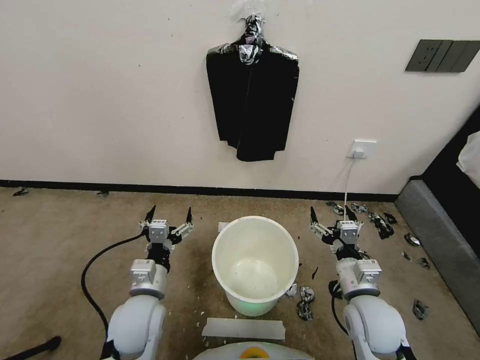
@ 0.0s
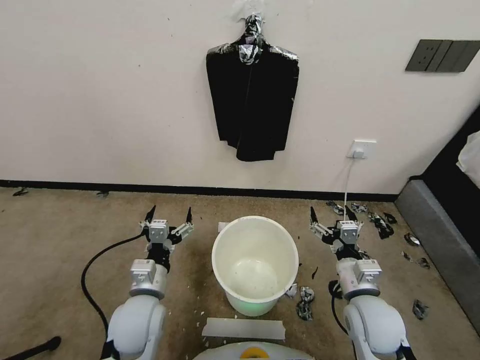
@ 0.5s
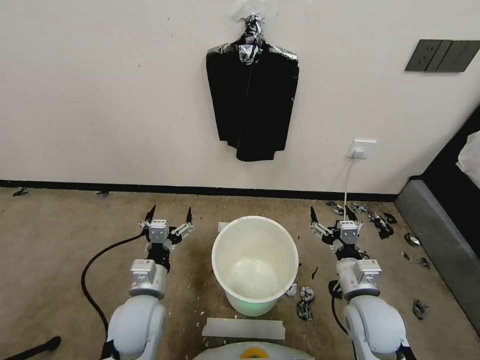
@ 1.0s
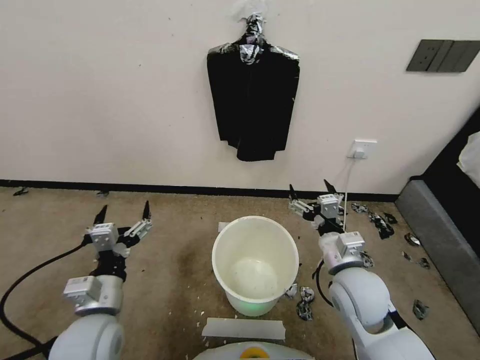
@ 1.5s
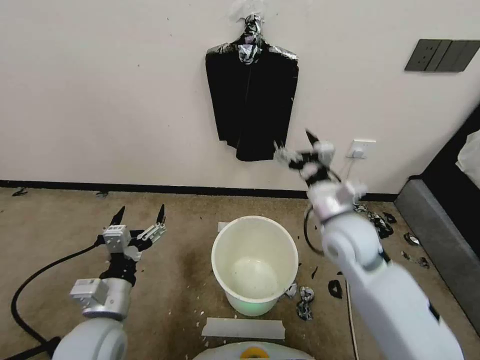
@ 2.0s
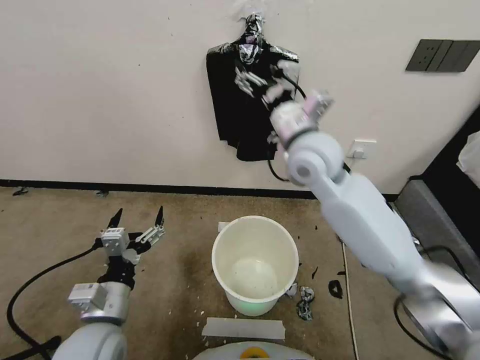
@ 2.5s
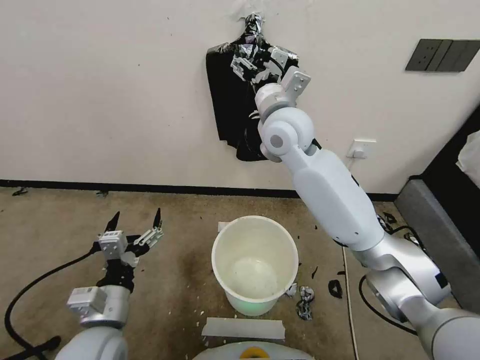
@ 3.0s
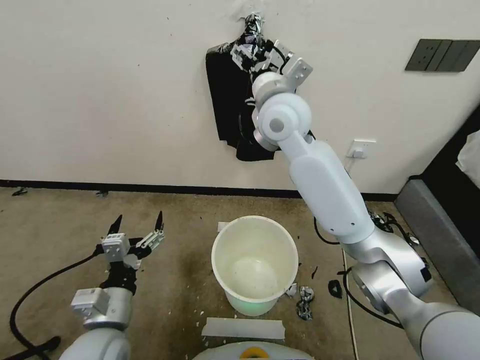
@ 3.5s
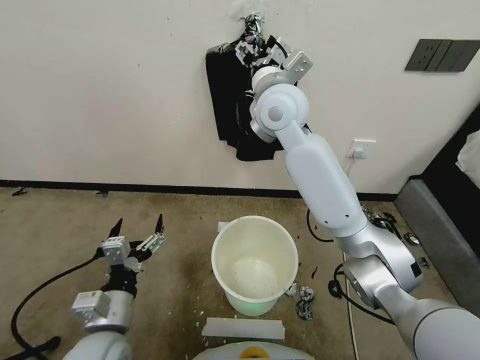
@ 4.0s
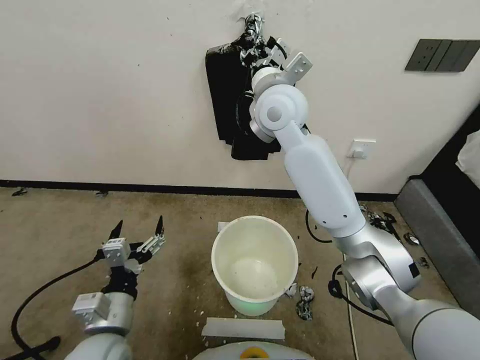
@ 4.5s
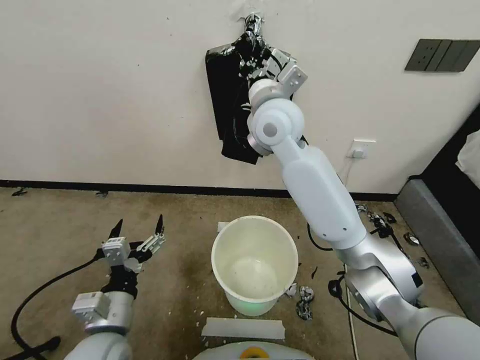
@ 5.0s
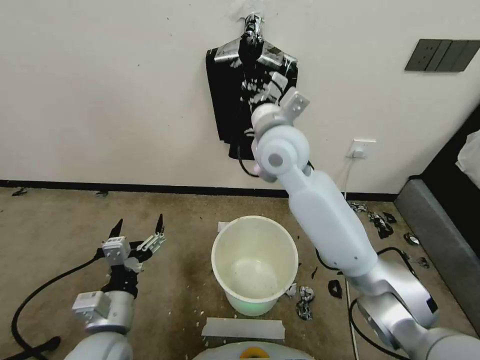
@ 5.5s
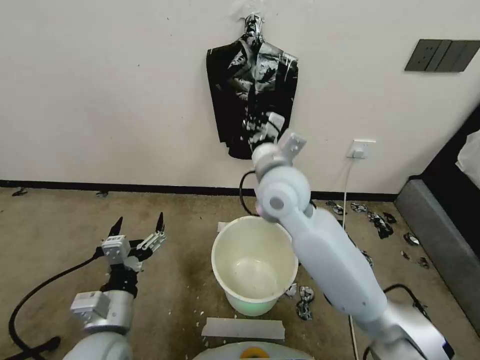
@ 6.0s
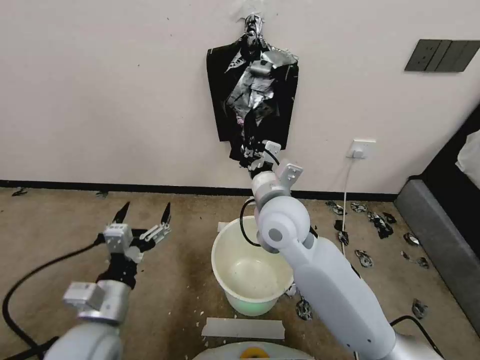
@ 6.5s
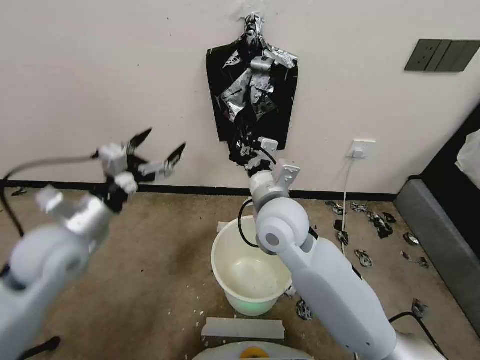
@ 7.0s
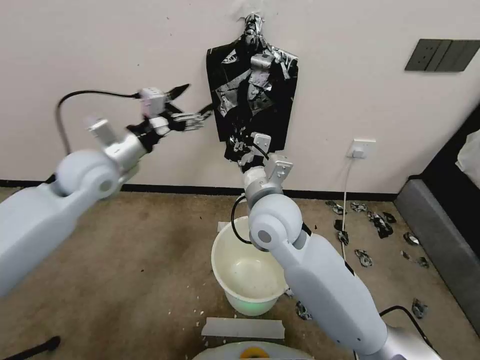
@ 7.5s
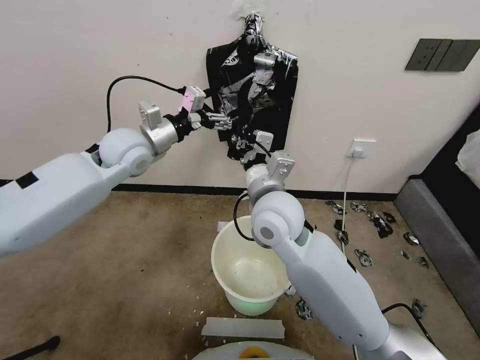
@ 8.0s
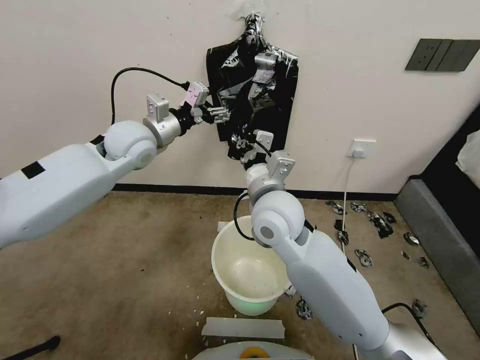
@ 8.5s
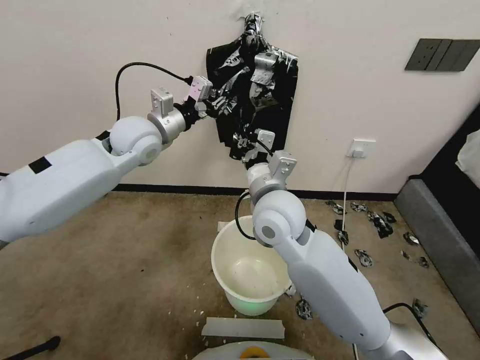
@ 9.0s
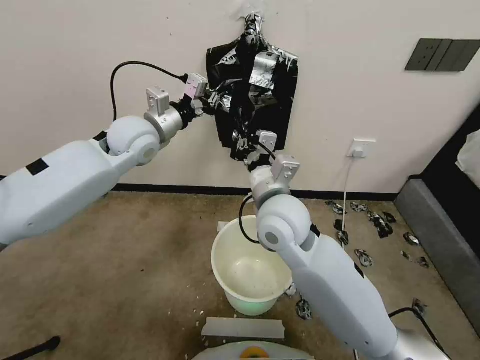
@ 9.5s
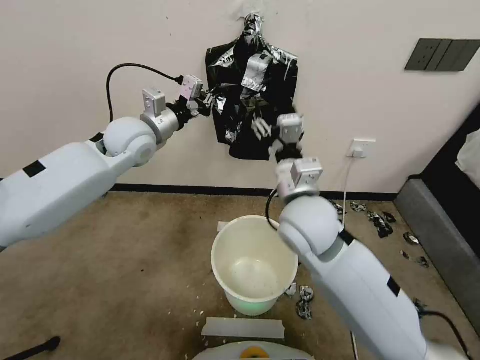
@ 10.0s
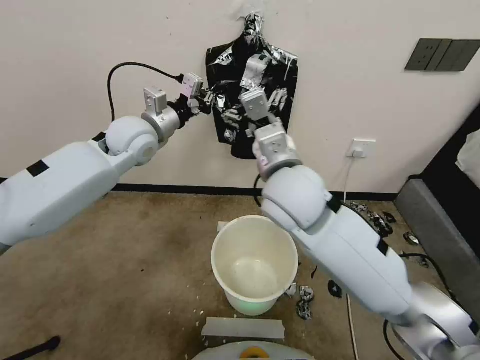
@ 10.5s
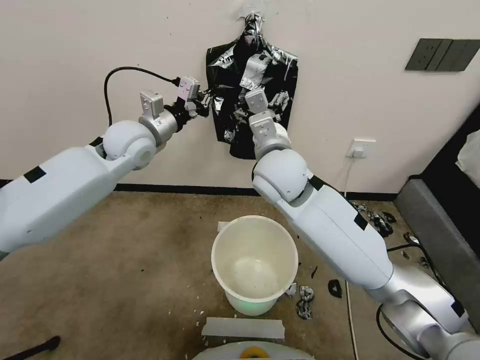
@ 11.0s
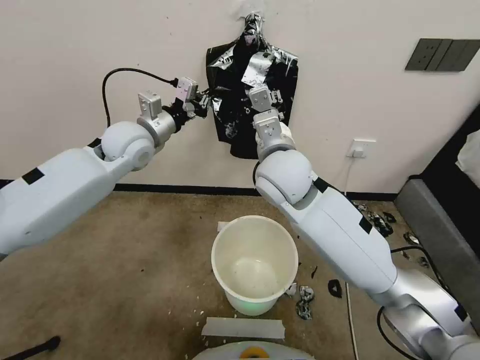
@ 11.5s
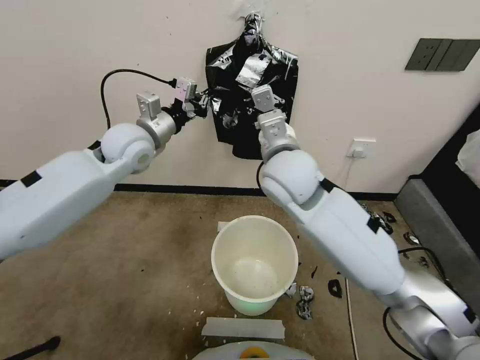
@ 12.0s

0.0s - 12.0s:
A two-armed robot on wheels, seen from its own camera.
Task of the whole recording: Place a trash bag onto the trash bin.
2.0s - 4.0s: The right gripper shifts about 30 cm upward, forward and to the left.
4.0s - 6.0s: The right gripper shifts approximately 15 cm downward and backward, and closes up.
6.0s - 8.0s: The left gripper shifts approximately 35 cm forward and upward. Meanwhile the right gripper moves approximately 5 cm.
8.0s - 10.0s: The right gripper changes place by approximately 5 cm, and opens up. The left gripper closes.
10.0s - 12.0s: The right gripper goes some 5 cm forward, and closes its fingers.

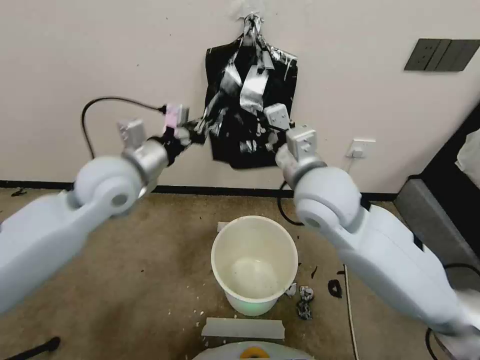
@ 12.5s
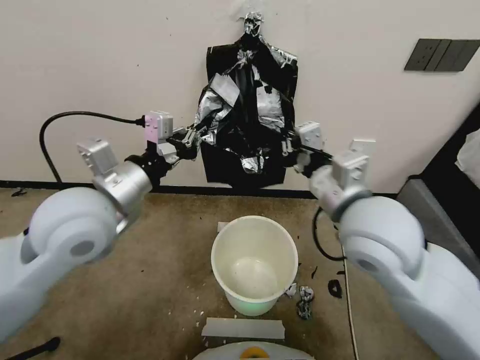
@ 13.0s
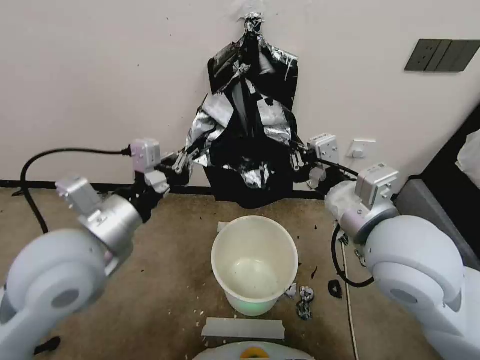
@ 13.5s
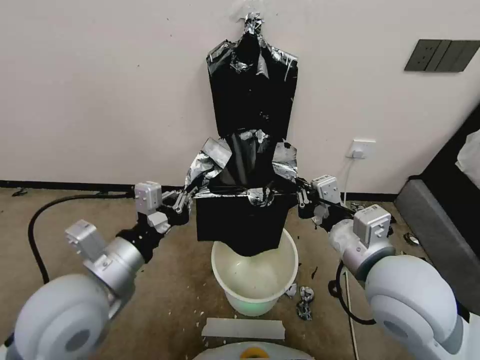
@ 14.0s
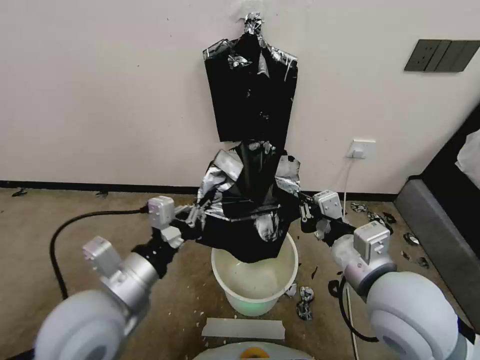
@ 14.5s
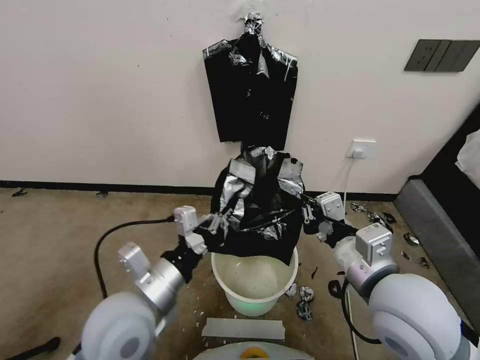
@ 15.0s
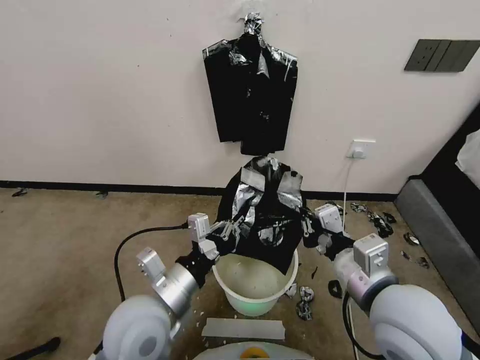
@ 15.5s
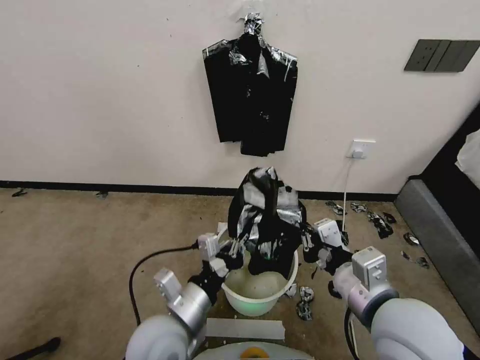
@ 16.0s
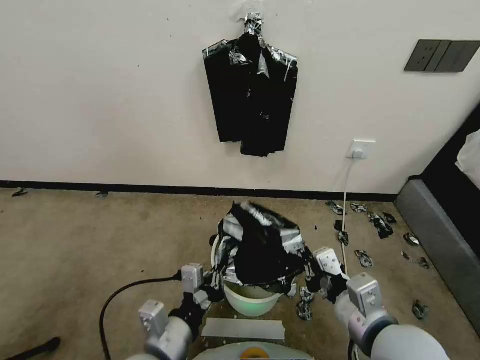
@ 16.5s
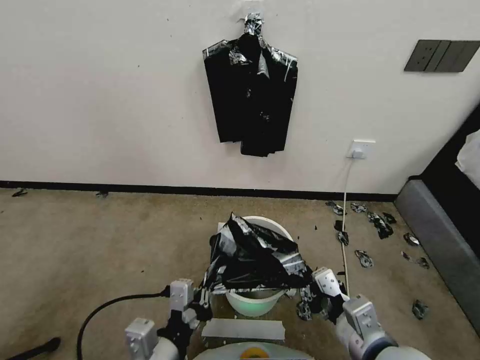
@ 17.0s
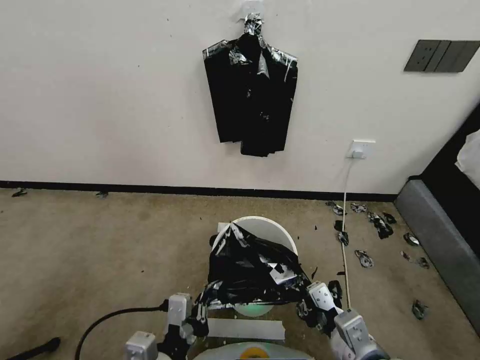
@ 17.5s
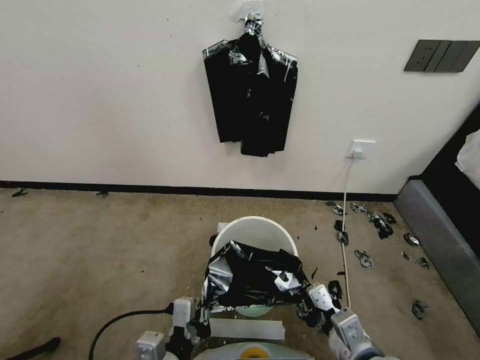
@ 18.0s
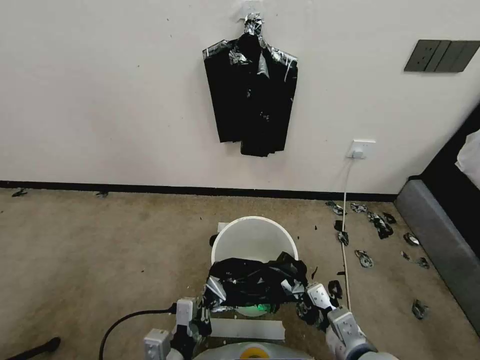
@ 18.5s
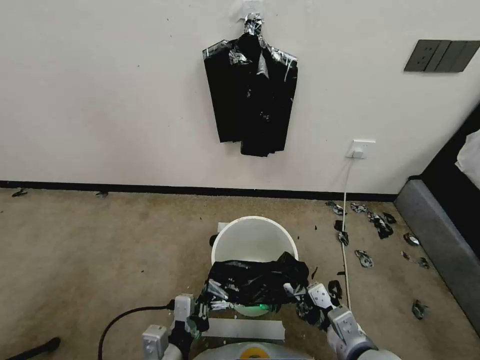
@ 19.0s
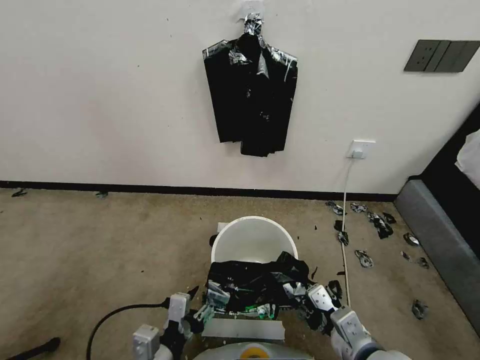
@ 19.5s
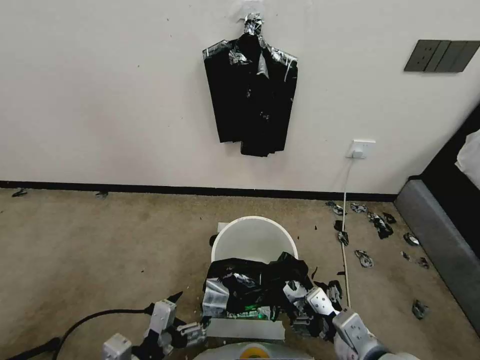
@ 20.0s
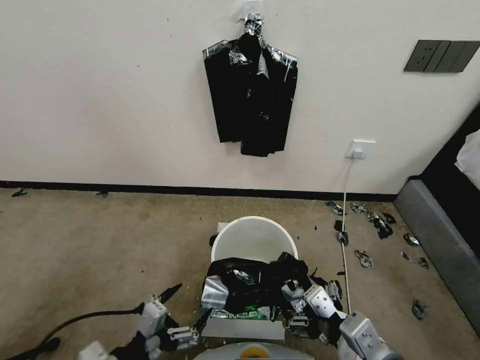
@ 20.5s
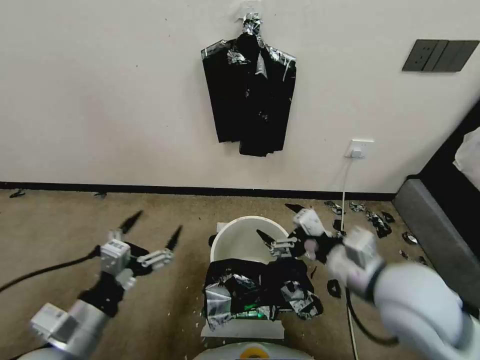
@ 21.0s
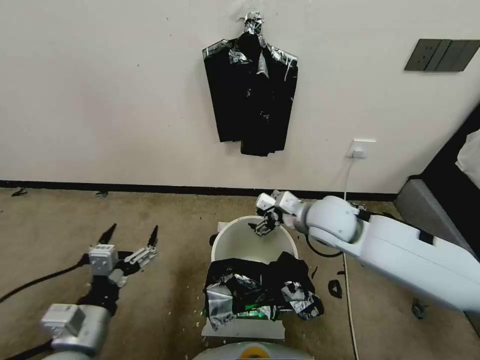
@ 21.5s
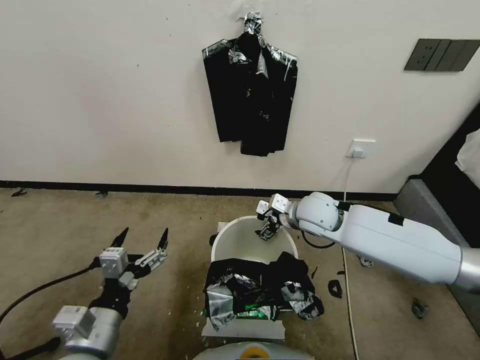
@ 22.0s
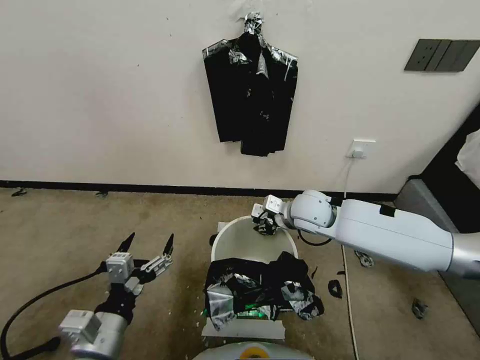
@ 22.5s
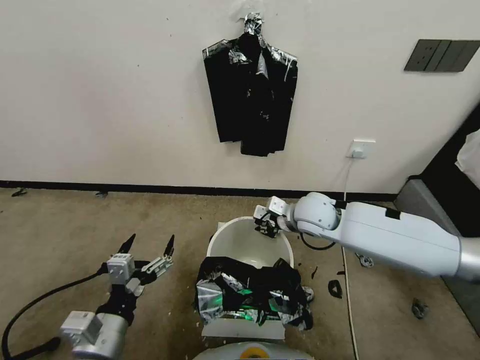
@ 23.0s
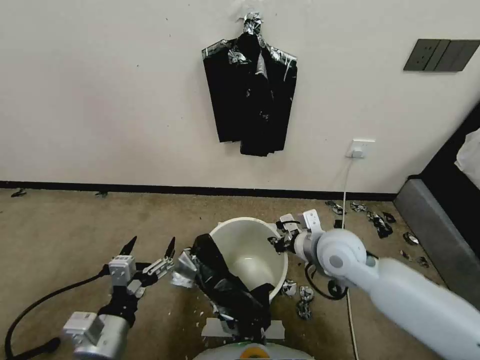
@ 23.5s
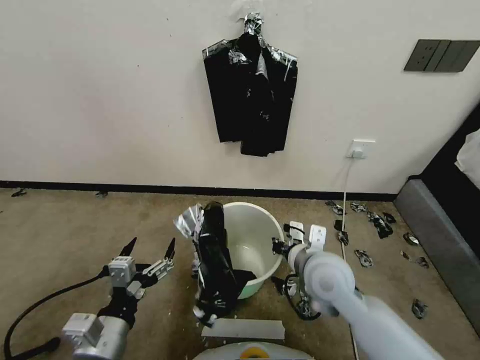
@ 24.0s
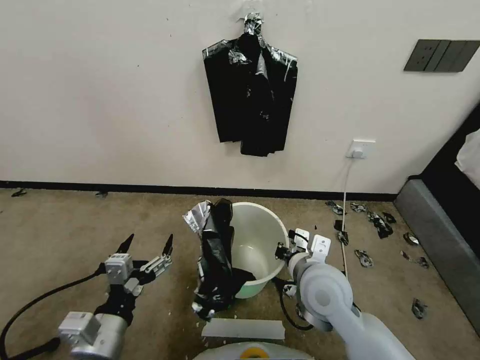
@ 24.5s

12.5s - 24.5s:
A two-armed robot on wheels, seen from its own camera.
Task of the whole recording: Place a trash bag onto the trash bin.
12.5s - 14.5s: The left gripper goes approximately 20 cm backward and downward. The right gripper goes approximately 20 cm backward, to the right and downward.
14.5s - 16.5s: The right gripper heads downward and backward, covering roughly 10 cm; the left gripper goes about 15 cm downward and backward.
16.5s - 18.5s: The right gripper goes roughly 10 cm downward, while the left gripper heads downward, covering approximately 5 cm.
18.5s - 20.5s: The left gripper shifts some 10 cm to the left and upward, and opens. The right gripper heads upward, covering about 10 cm, and opens its fingers.
20.5s - 22.5s: The right gripper is displaced forward by some 30 cm, and closes up; the left gripper ends up some 5 cm from where it was.
22.5s - 24.5s: The right gripper goes roughly 15 cm backward, and closes.

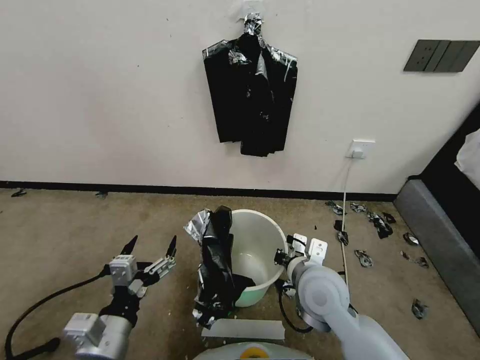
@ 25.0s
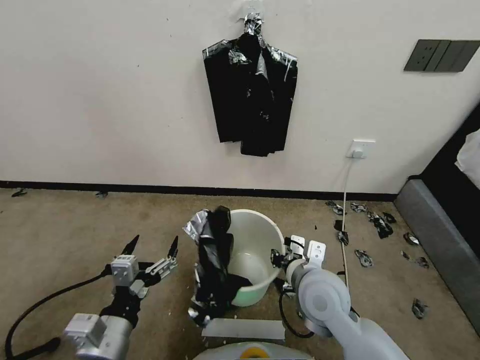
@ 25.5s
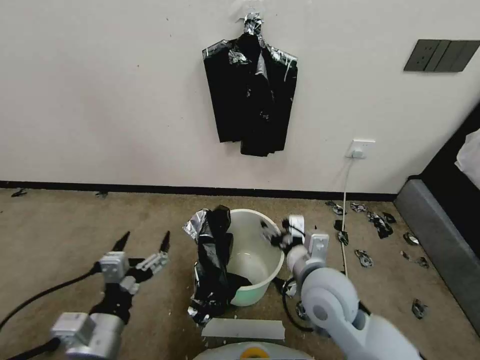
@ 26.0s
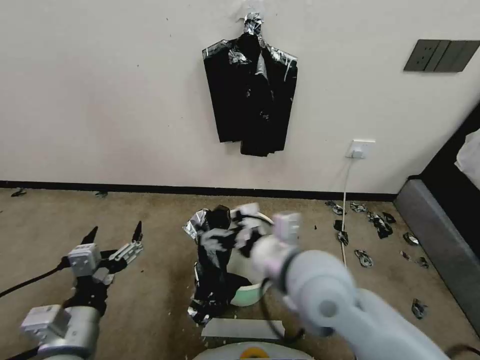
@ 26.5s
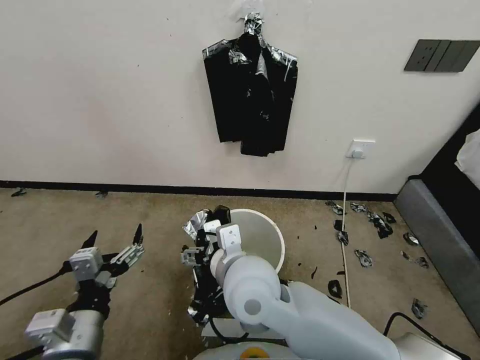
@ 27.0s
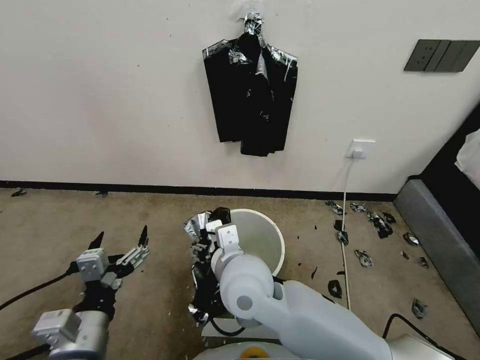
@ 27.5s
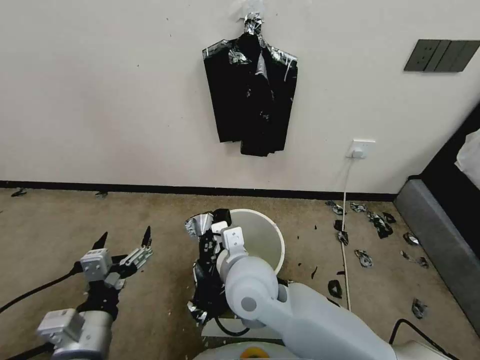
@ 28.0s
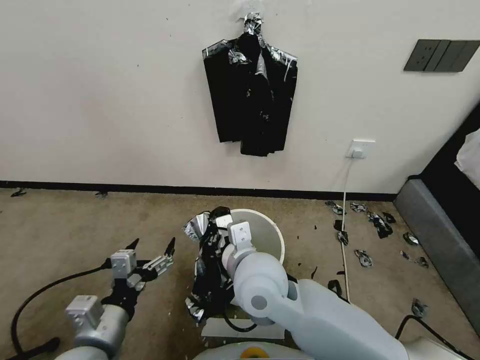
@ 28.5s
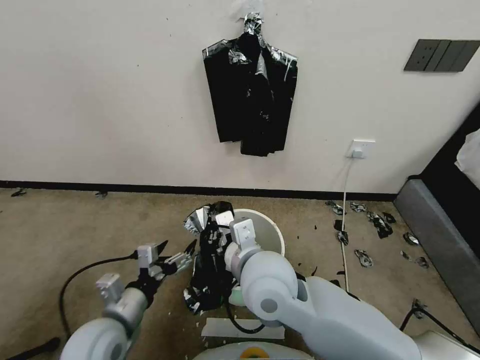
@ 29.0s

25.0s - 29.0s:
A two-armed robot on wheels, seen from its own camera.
Task of the whole recording: Place a trash bag onto the trash bin.
25.0s - 27.0s: The right gripper is displaced to the left and upward by about 15 cm, and opens up.
27.0s - 29.0s: The left gripper goes roughly 10 cm downward and forward, while the right gripper closes up.
